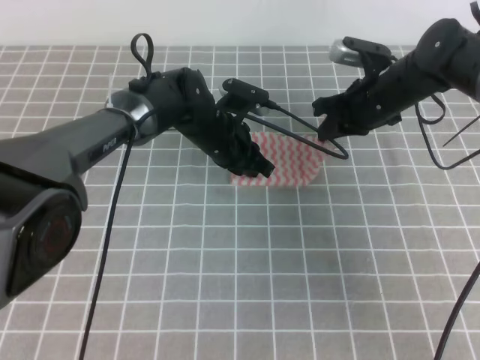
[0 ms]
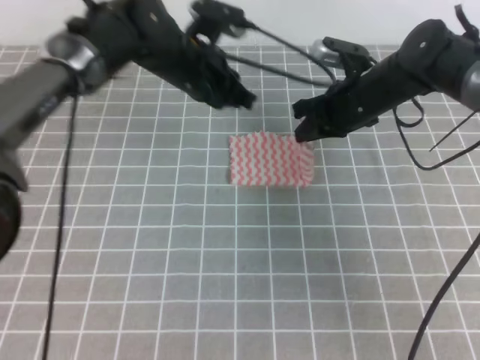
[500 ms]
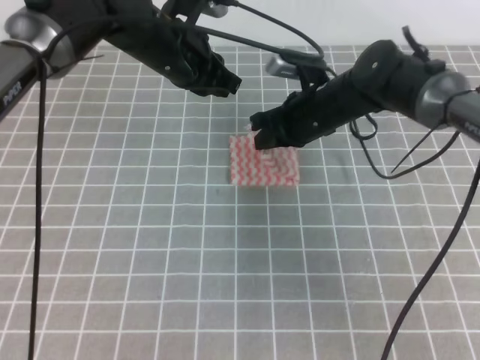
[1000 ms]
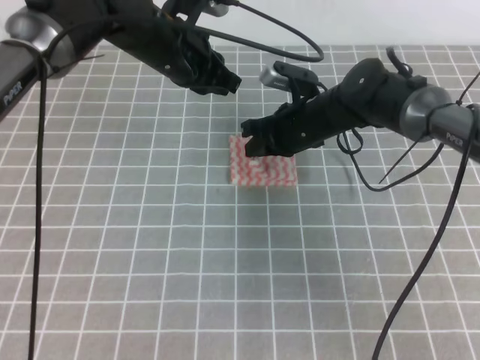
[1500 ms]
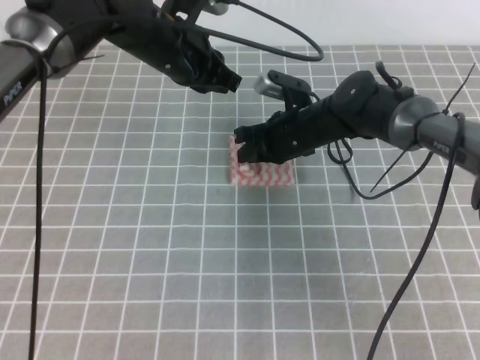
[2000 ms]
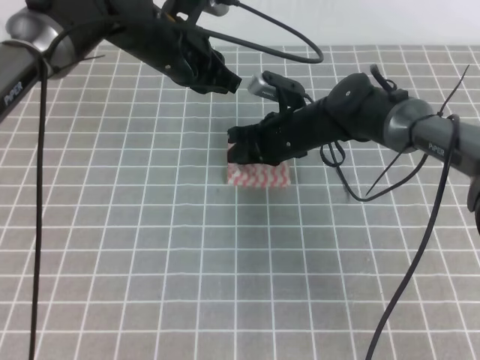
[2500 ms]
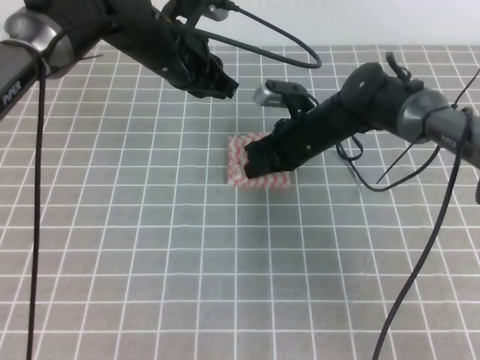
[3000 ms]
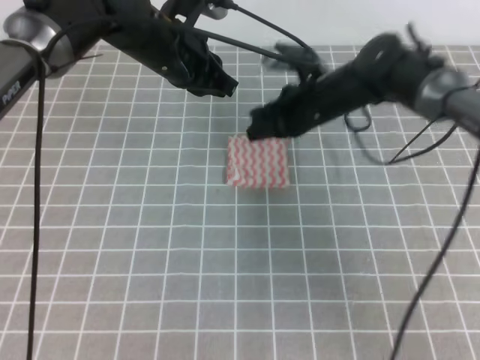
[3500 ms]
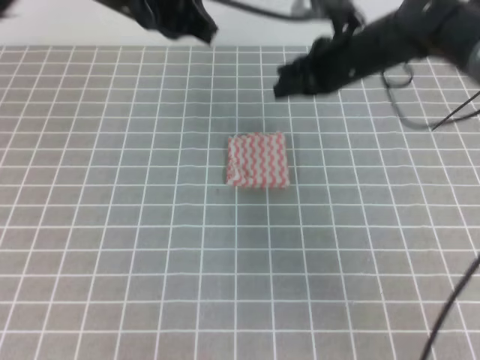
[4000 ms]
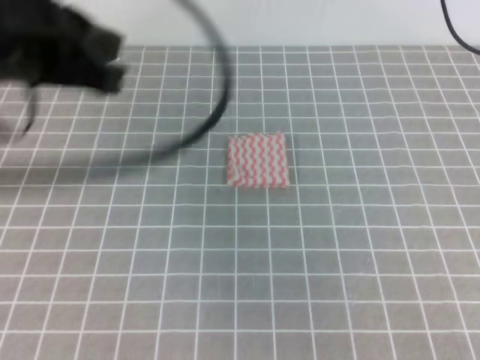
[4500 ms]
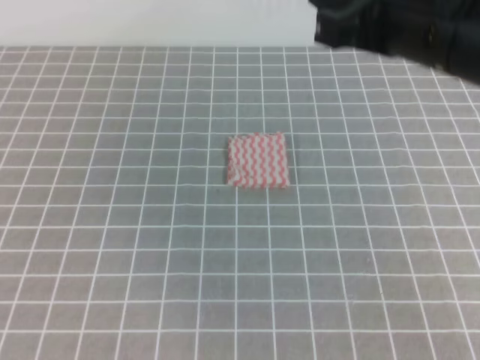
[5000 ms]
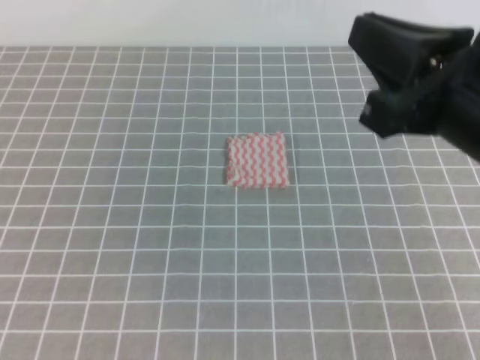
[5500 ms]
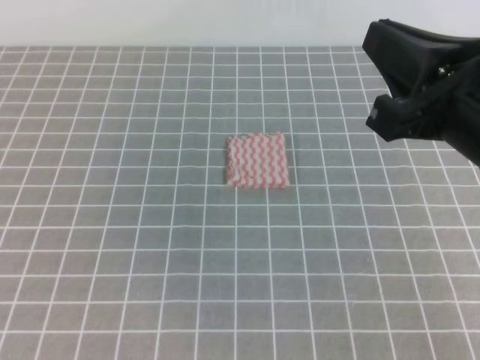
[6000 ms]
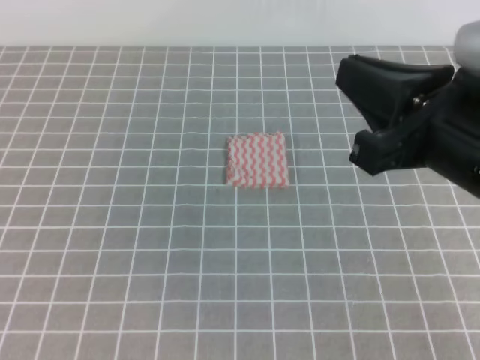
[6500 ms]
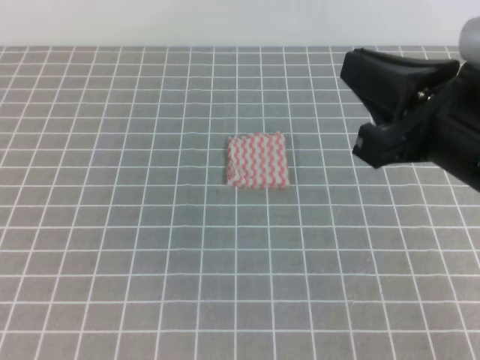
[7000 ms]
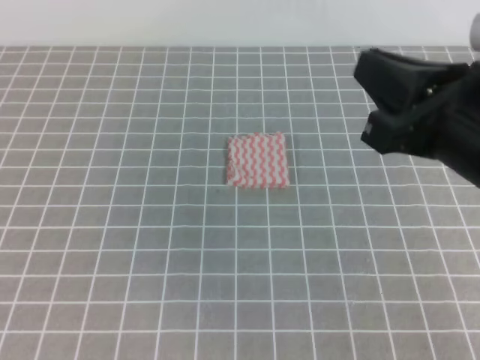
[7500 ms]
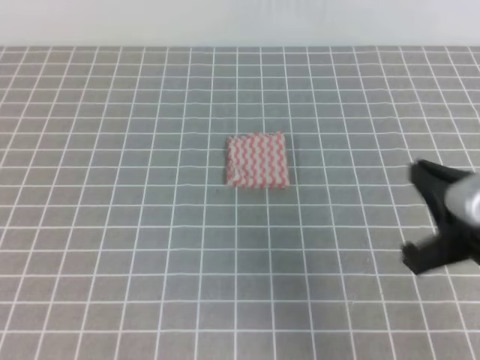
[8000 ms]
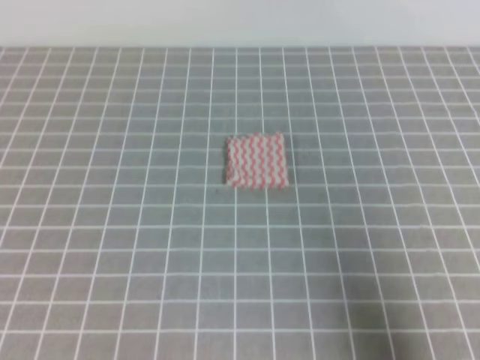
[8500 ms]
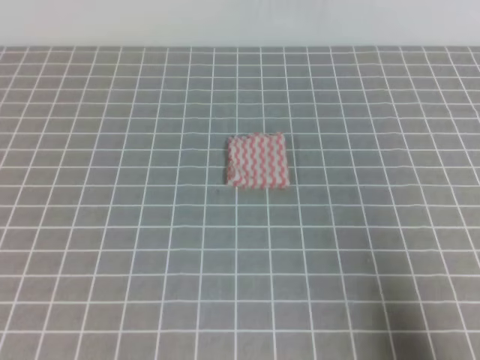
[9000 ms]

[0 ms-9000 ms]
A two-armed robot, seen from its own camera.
0 ms to 2000 ms: The right gripper moves to the left, some 10 cm; the left gripper is displaced upward and to the left by some 15 cm.
2000 ms to 4500 ms: The left gripper is displaced backward, upward and to the left by approximately 25 cm. The right gripper heads upward, covering about 25 cm, and opens and closes again.
4500 ms to 7000 ms: The left gripper travels backward, to the left and downward by some 25 cm; the right gripper goes approximately 20 cm backward.
7000 ms to 9000 ms: The right gripper moves downward, to the right and backward, roughly 25 cm.

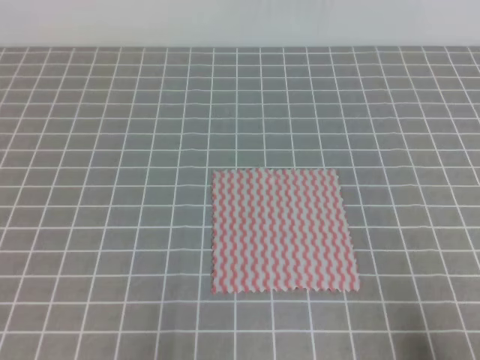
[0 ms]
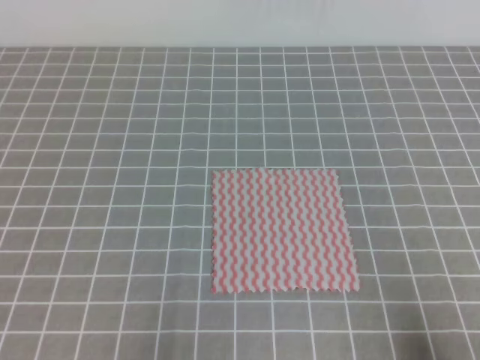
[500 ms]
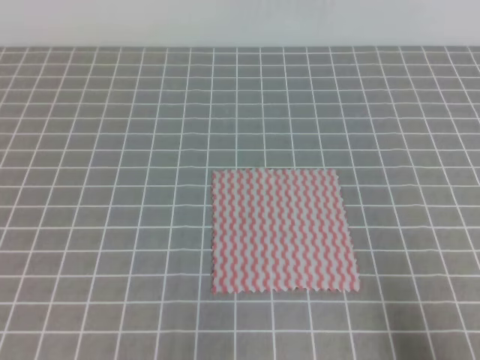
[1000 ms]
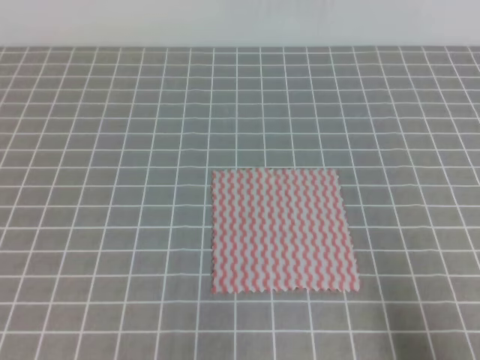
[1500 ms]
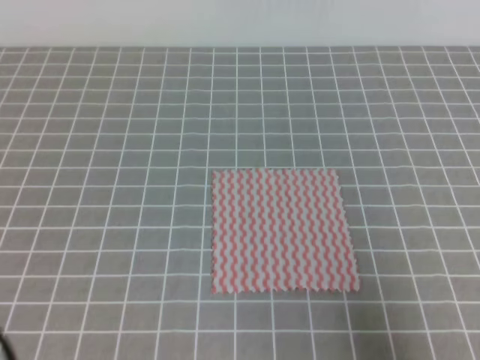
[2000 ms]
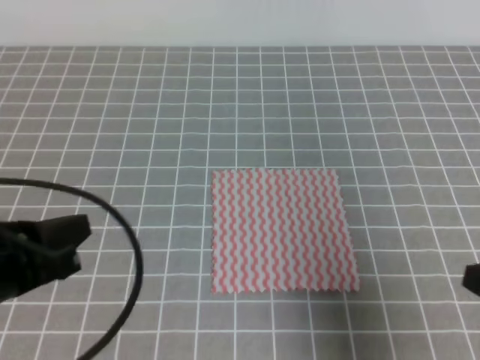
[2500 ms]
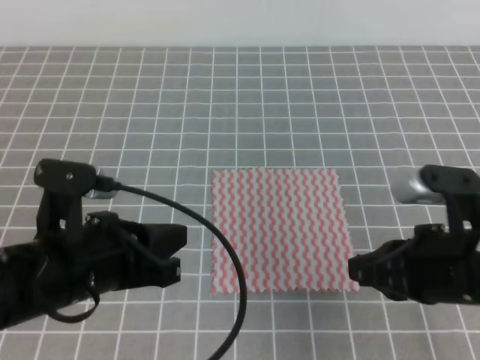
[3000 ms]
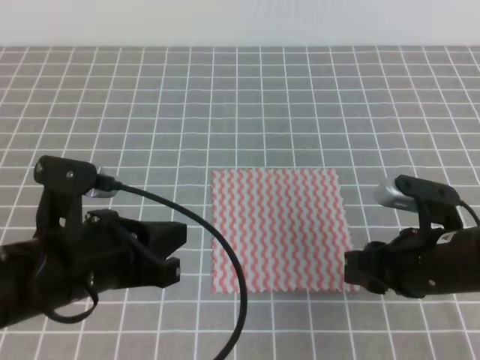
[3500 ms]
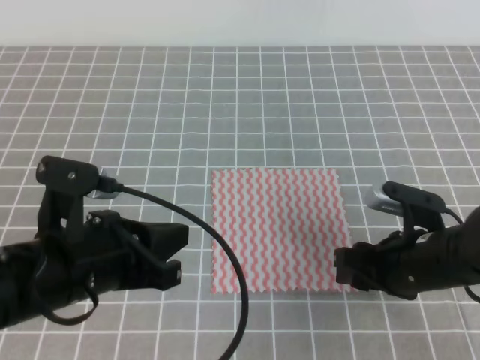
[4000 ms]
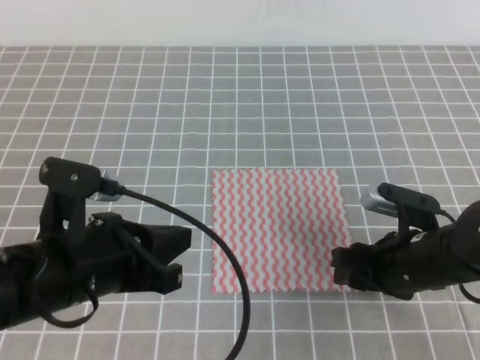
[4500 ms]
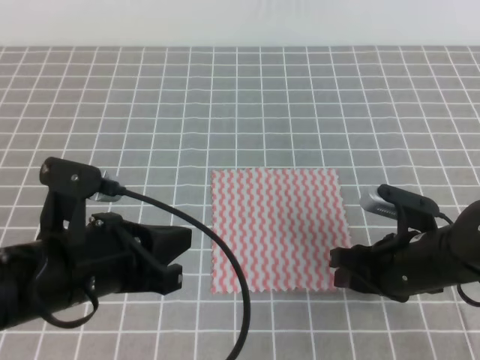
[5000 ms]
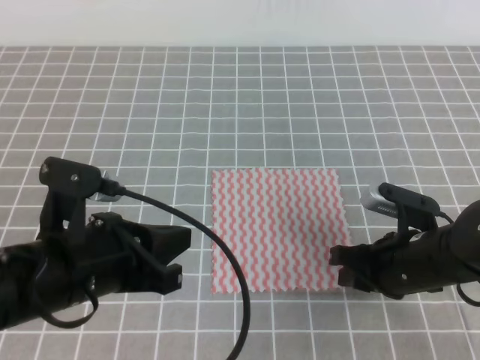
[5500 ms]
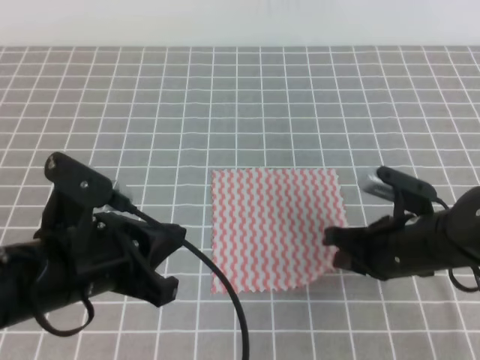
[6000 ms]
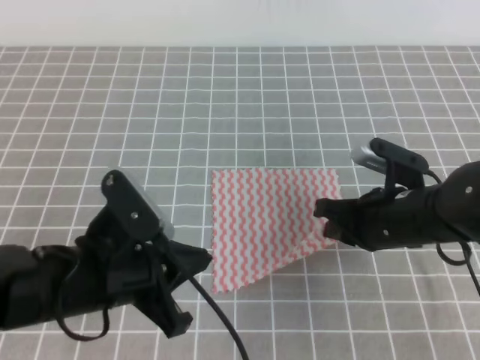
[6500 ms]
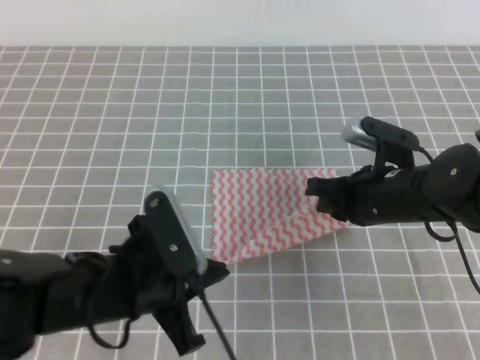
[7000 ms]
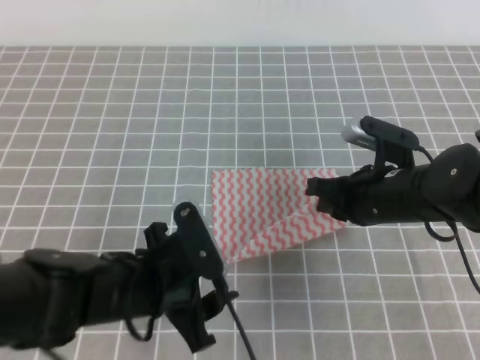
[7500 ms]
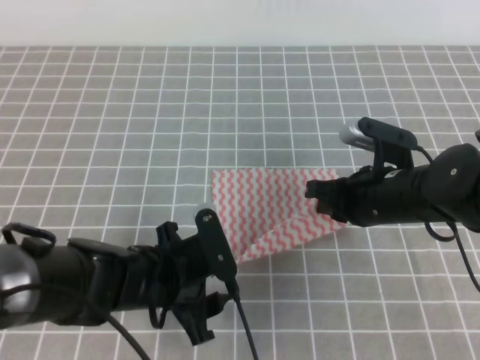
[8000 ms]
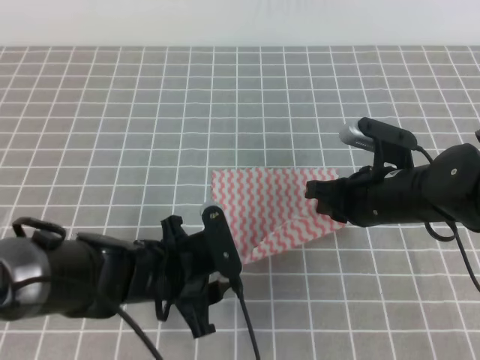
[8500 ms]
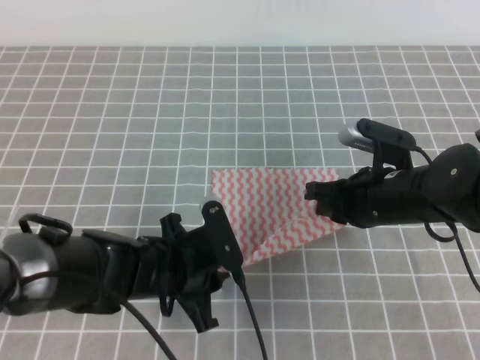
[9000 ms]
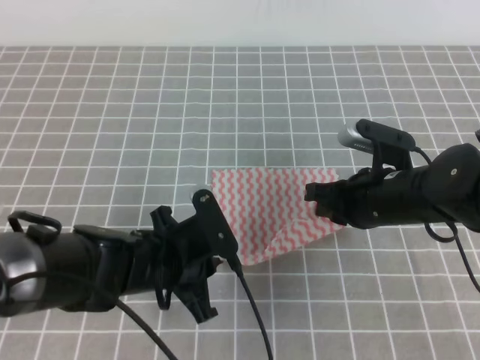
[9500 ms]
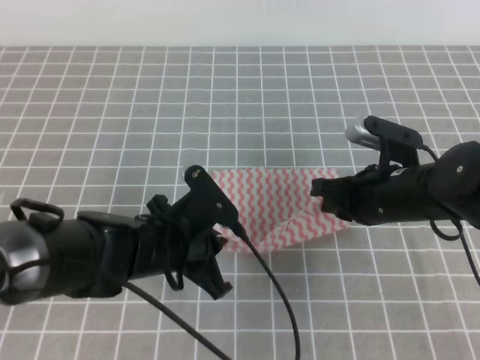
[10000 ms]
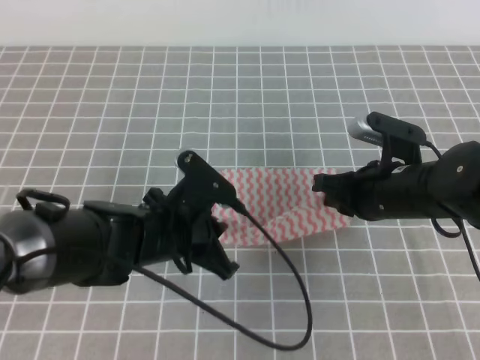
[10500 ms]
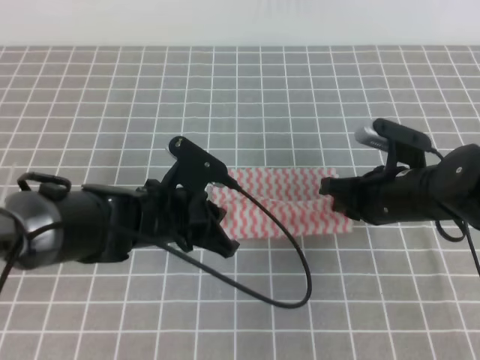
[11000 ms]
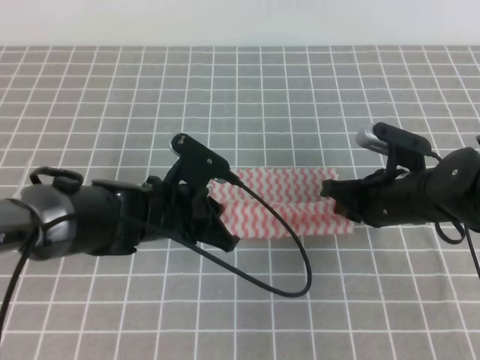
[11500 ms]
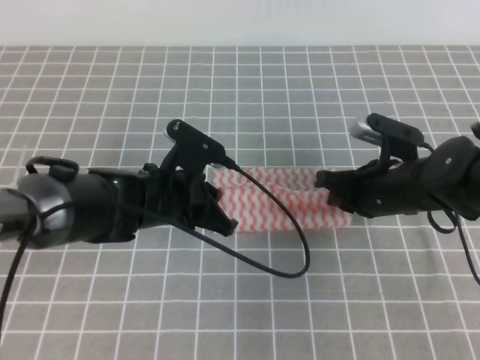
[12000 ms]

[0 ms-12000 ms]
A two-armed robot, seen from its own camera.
0 ms to 2000 ms: Both grippers travel together upward, roughly 5 cm.
2000 ms to 4000 ms: The right gripper shifts about 25 cm forward, to the left and downward, and opens up. Meanwhile the left gripper travels to the right and forward by approximately 15 cm.
4000 ms to 6000 ms: The right gripper closes its fingers.
6000 ms to 8000 ms: The left gripper travels downward, to the right and forward by roughly 15 cm, and opens its fingers. Meanwhile the right gripper changes place by approximately 5 cm.
8000 ms to 10000 ms: The left gripper closes up.
10000 ms to 12000 ms: The left gripper goes some 5 cm forward.

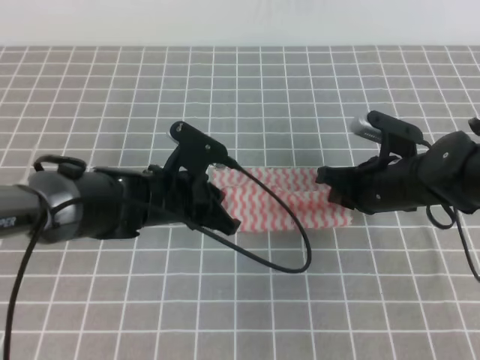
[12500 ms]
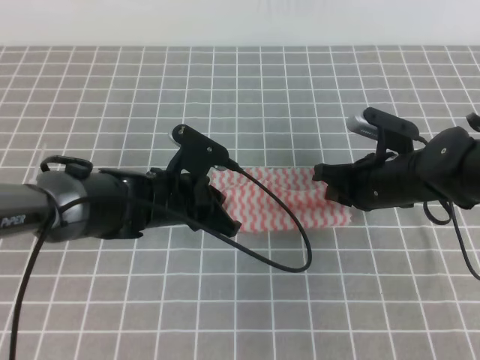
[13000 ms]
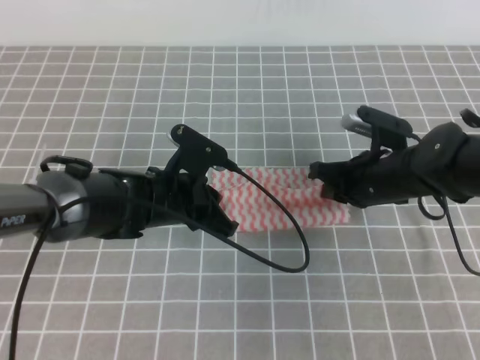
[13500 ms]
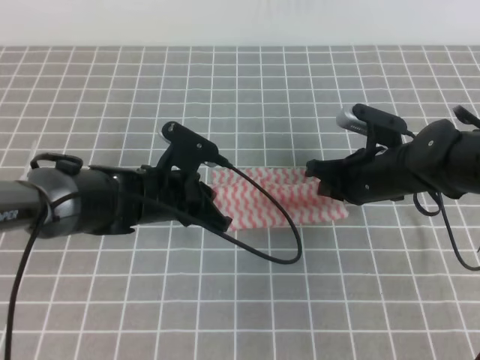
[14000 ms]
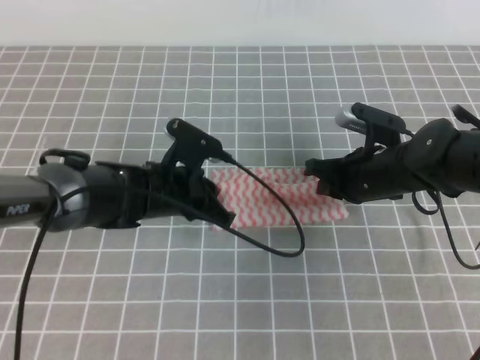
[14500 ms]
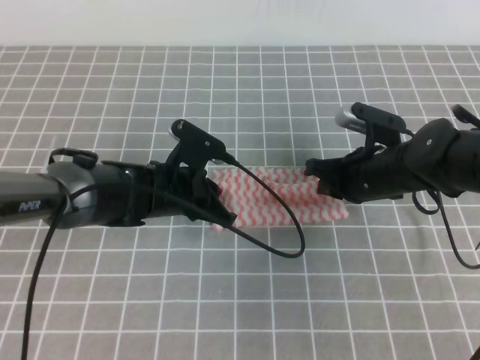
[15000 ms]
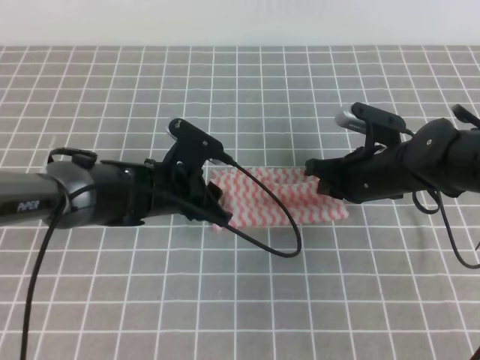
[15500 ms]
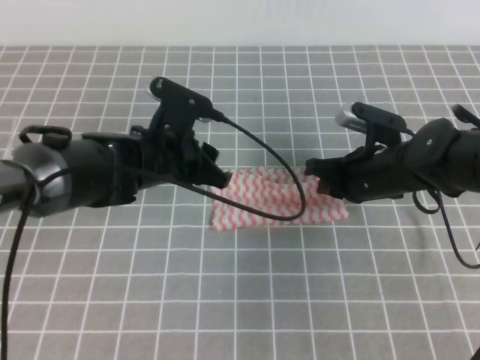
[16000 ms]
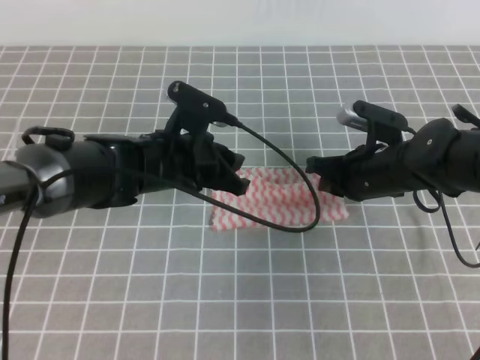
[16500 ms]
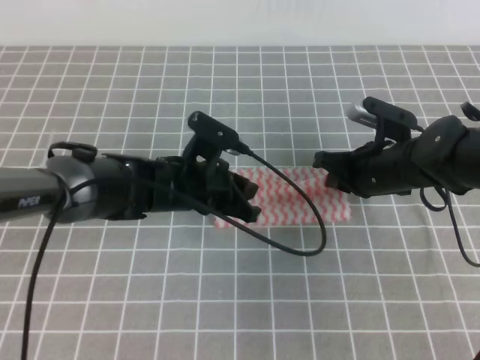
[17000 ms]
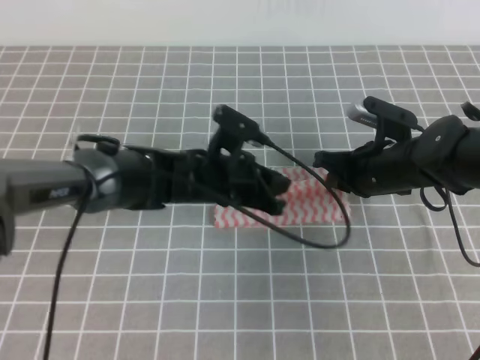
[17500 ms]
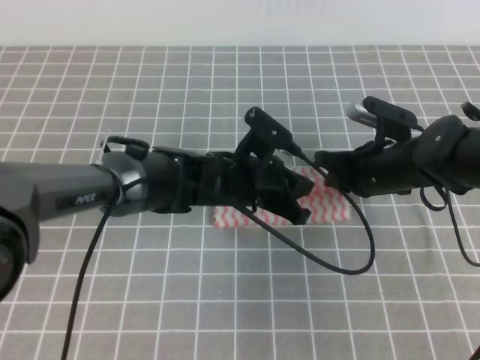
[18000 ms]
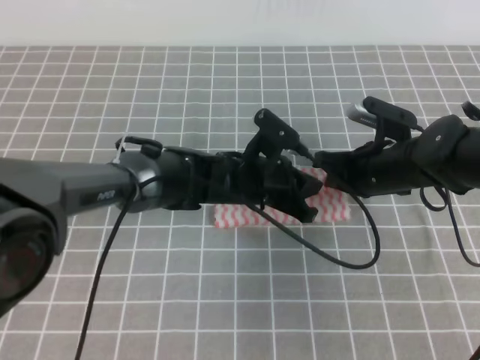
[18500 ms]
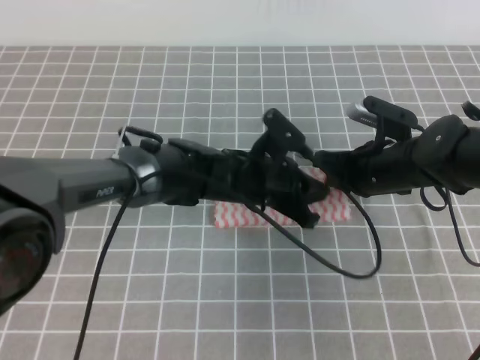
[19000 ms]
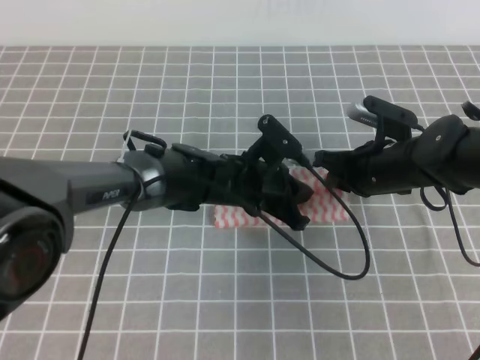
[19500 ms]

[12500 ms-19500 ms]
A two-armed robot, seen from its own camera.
12500 ms to 14500 ms: The grippers make only small movements.
14500 ms to 16000 ms: The left gripper opens its fingers.
16000 ms to 17500 ms: The left gripper moves to the right, approximately 5 cm, and closes.
17500 ms to 19500 ms: The grippers move only a little.
